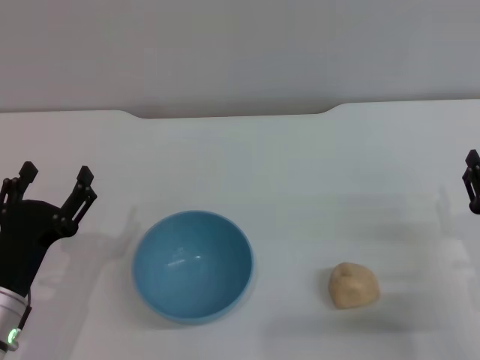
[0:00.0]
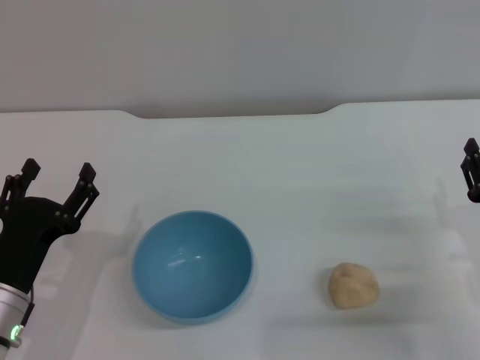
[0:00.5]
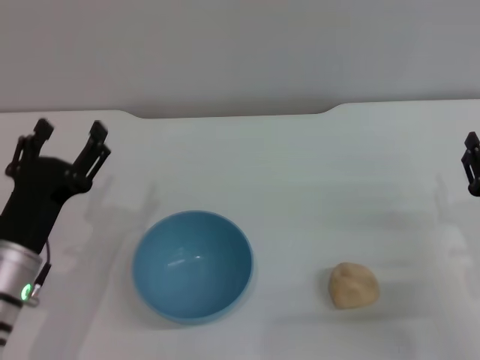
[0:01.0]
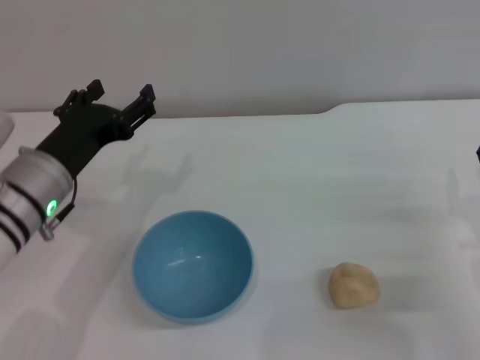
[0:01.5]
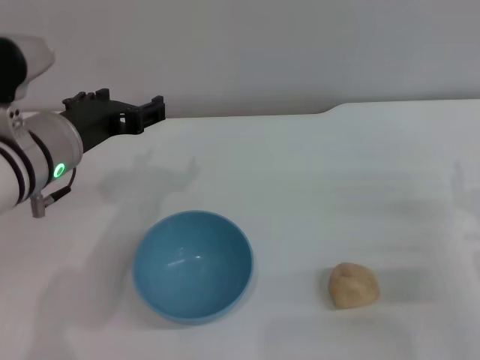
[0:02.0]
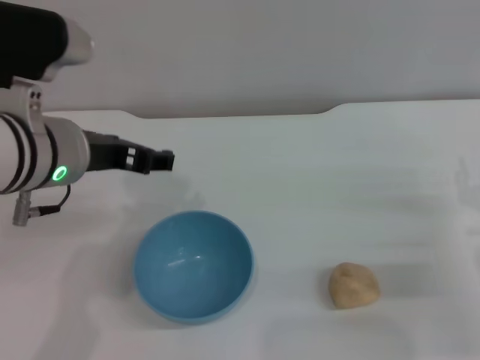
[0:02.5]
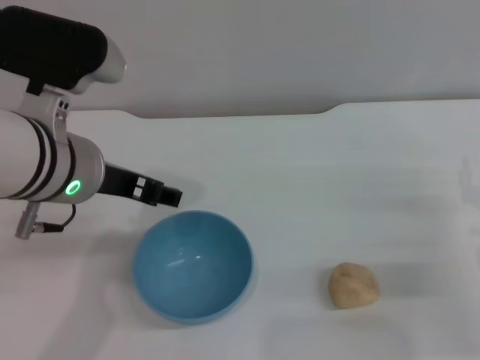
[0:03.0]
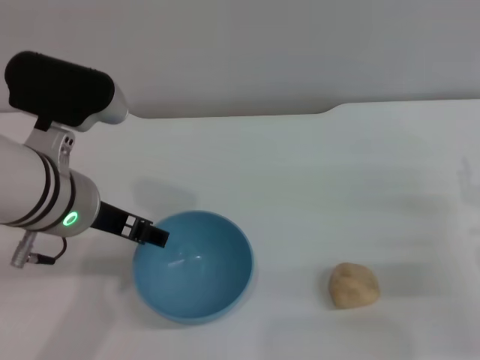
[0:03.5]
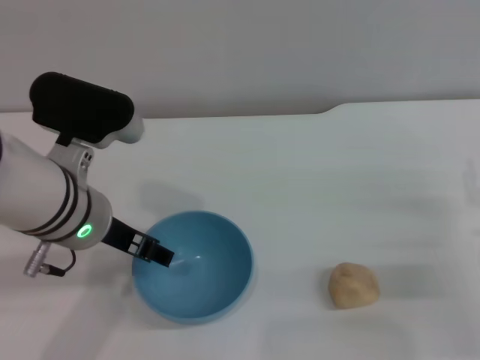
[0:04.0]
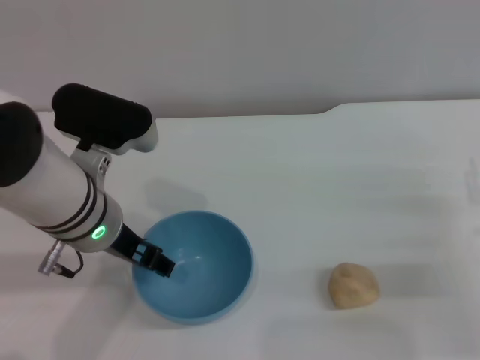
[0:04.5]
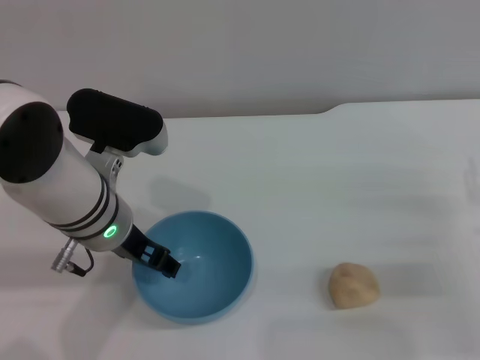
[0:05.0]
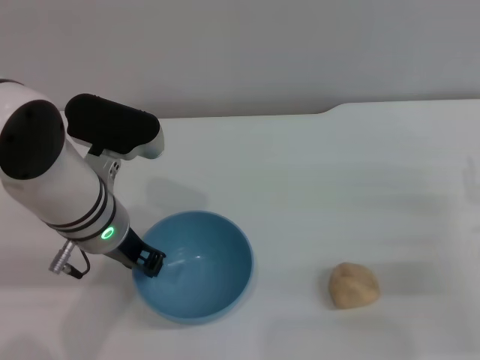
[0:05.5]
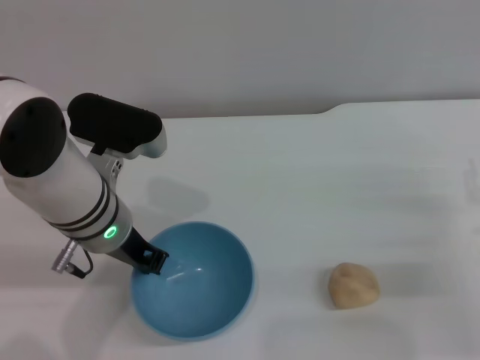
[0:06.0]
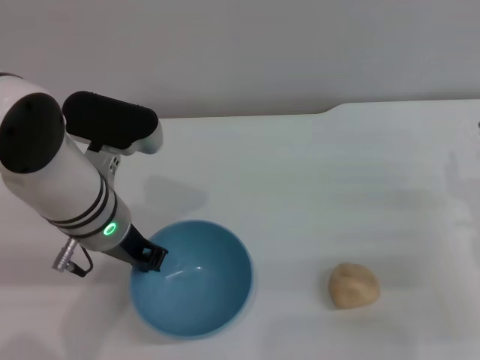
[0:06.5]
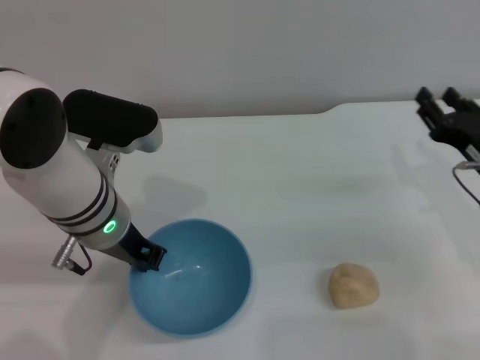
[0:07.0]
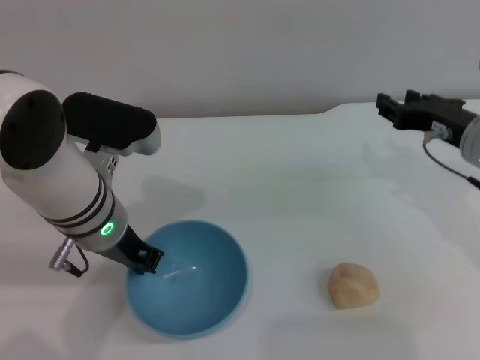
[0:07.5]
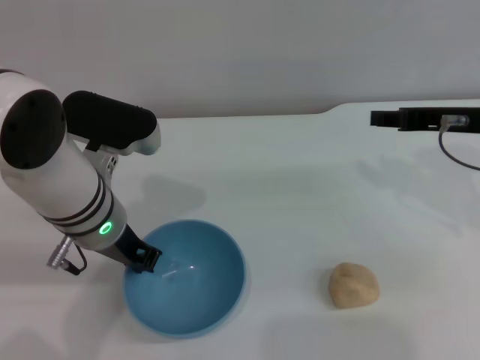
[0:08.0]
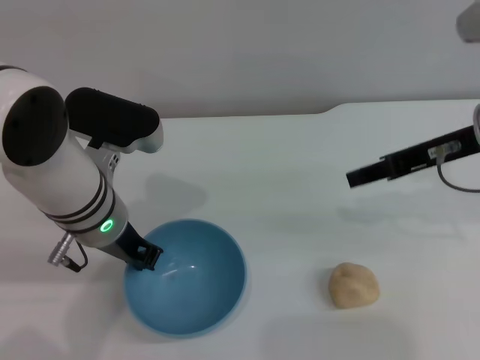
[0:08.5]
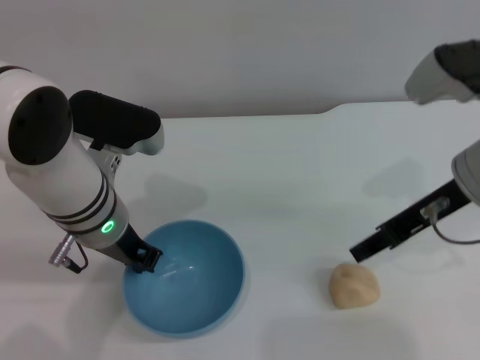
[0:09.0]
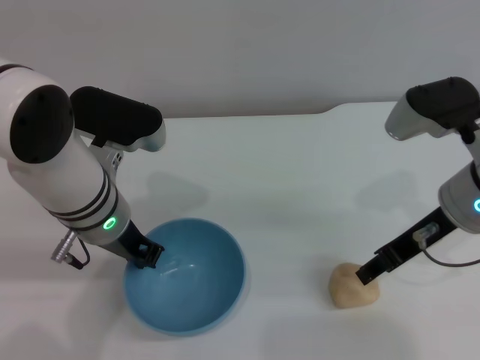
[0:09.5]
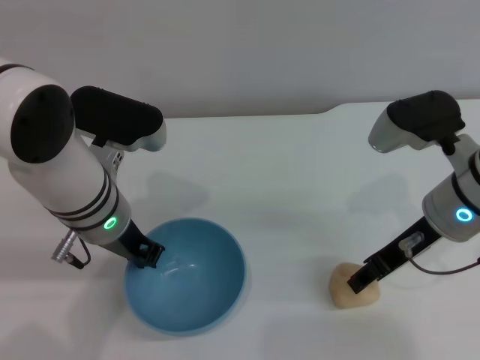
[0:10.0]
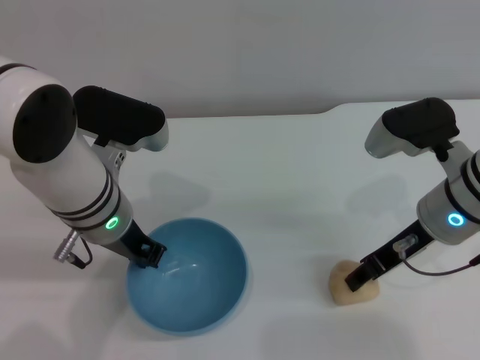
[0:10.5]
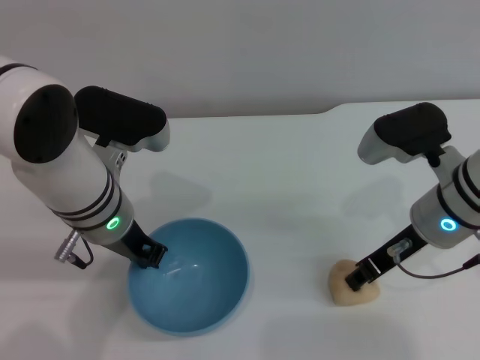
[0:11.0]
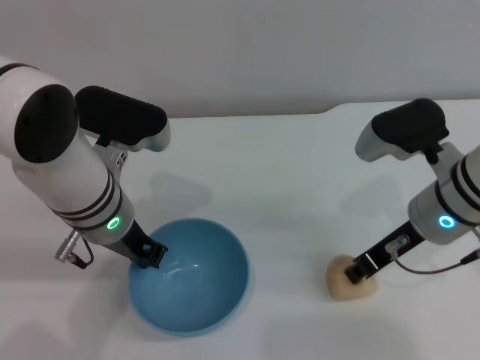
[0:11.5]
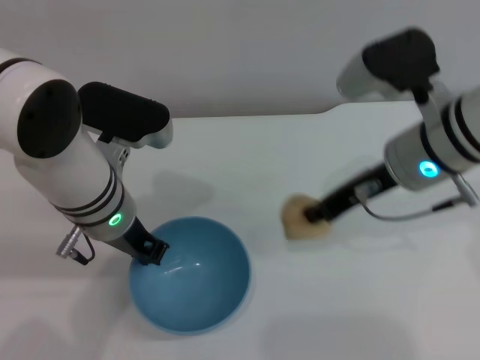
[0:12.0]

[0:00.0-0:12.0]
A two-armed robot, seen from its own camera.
Task of the whole recording: put the egg yolk pastry into the blue bowl and pour it out repeatedly.
Step, 0.0 to 11.0 s: Pick up the bowl with the left gripper.
0.0 to 2.0 s: The left gripper heads upward, forward and to the right, covering some 20 cm.
4.0 to 6.0 s: The left gripper closes.
6.0 to 8.0 s: The right gripper is displaced upward, forward and to the left by about 15 cm.
8.0 to 10.0 s: The right gripper moves to the left, approximately 5 cm.
10.0 to 12.0 s: The right gripper ends up some 5 cm from where it was, and closes up.

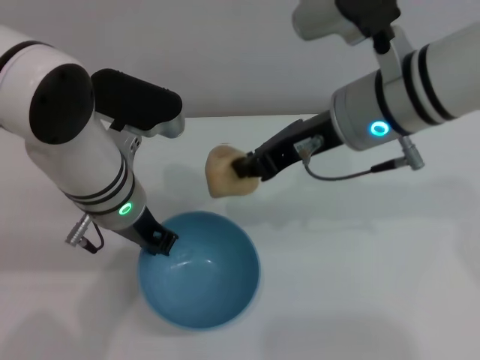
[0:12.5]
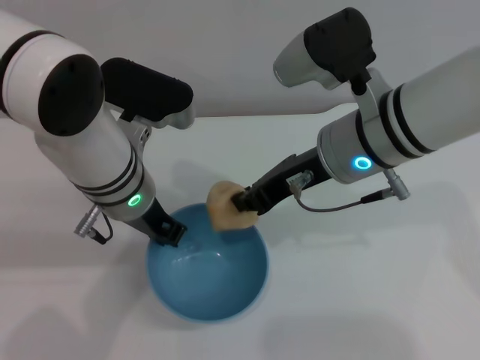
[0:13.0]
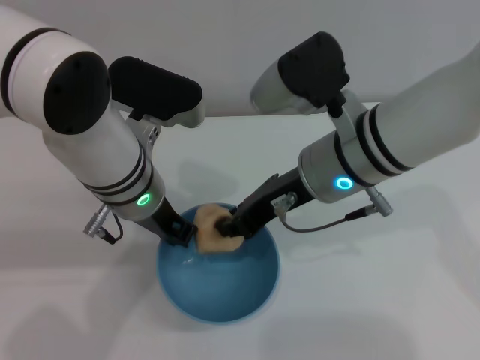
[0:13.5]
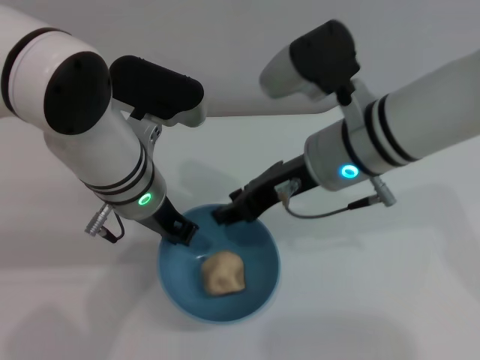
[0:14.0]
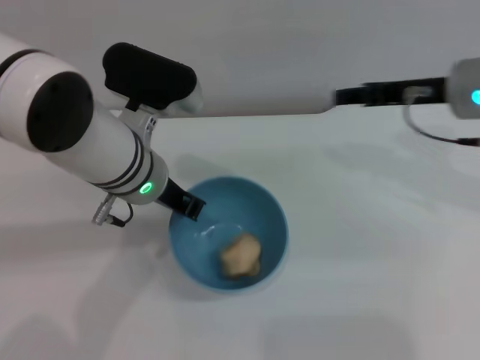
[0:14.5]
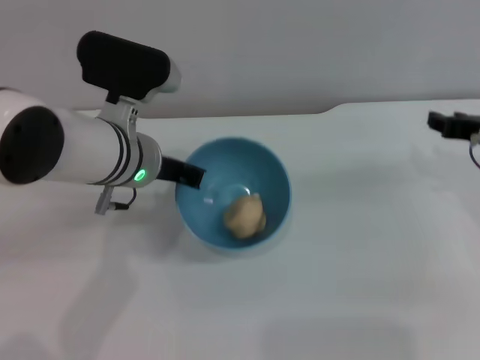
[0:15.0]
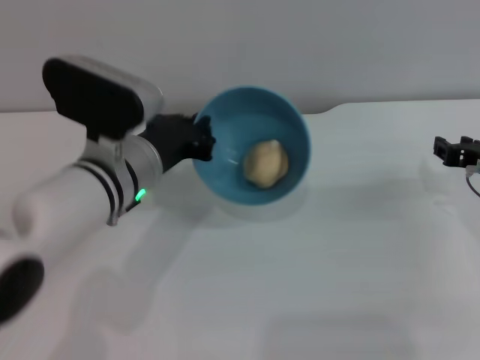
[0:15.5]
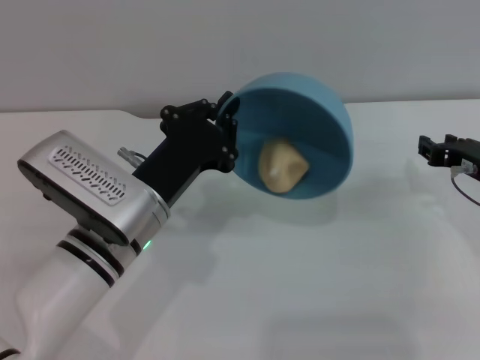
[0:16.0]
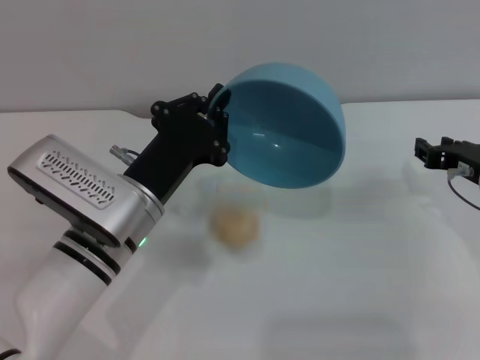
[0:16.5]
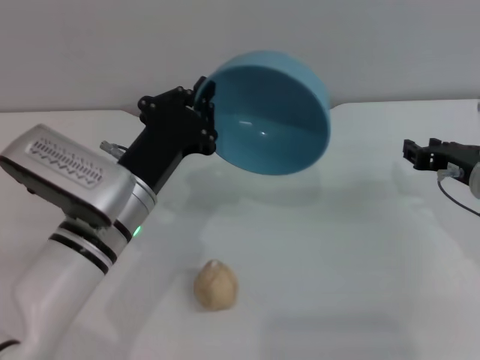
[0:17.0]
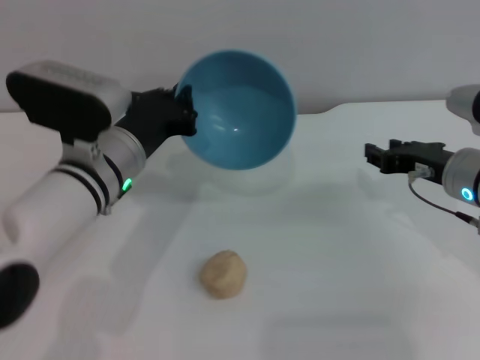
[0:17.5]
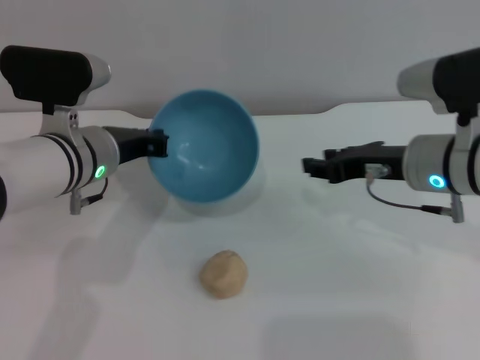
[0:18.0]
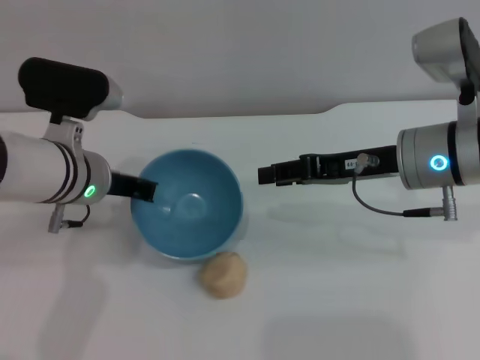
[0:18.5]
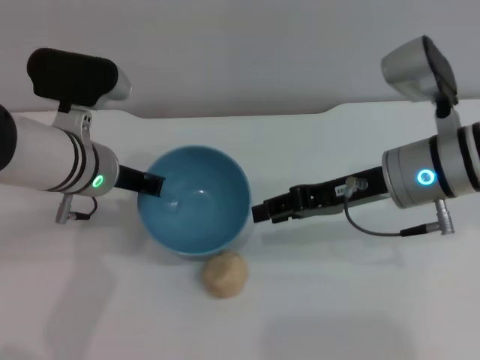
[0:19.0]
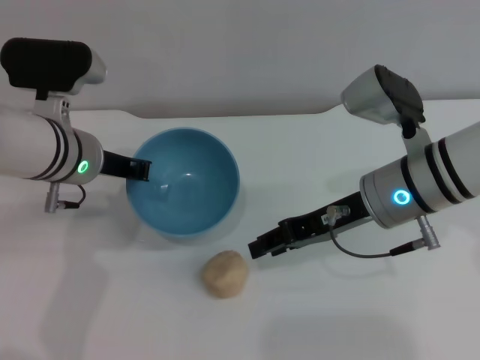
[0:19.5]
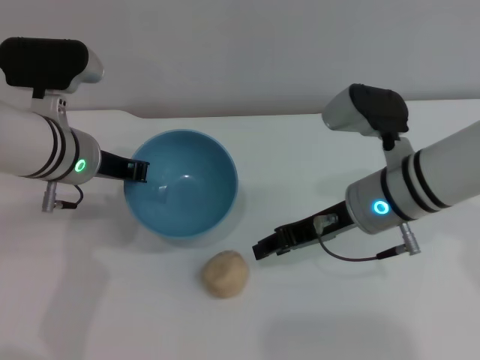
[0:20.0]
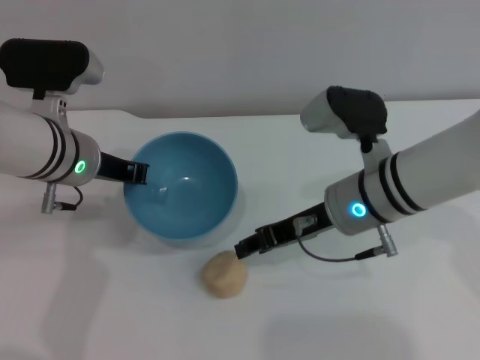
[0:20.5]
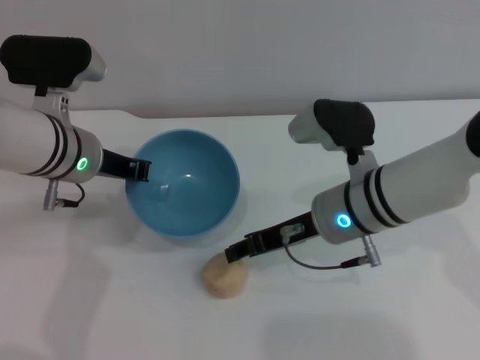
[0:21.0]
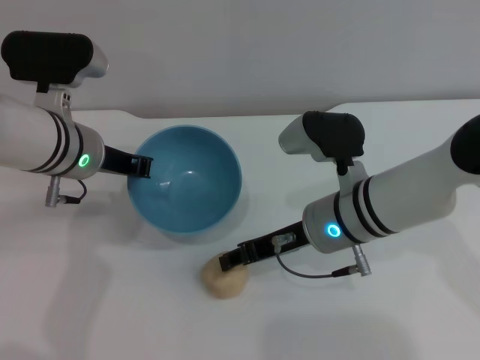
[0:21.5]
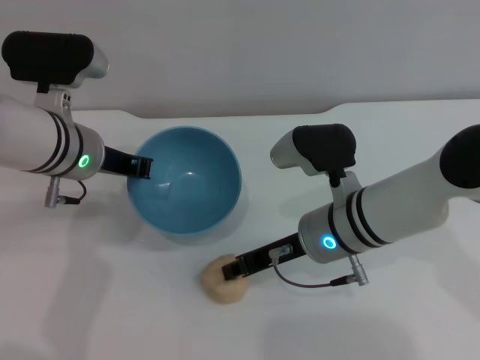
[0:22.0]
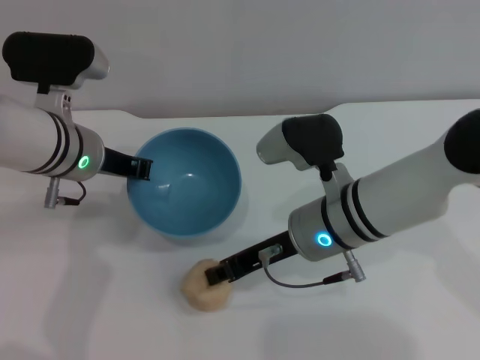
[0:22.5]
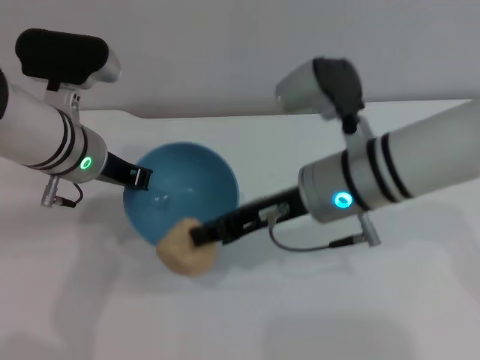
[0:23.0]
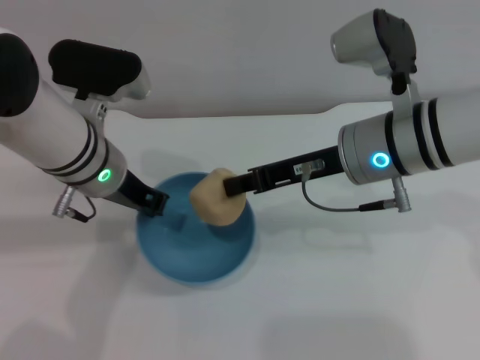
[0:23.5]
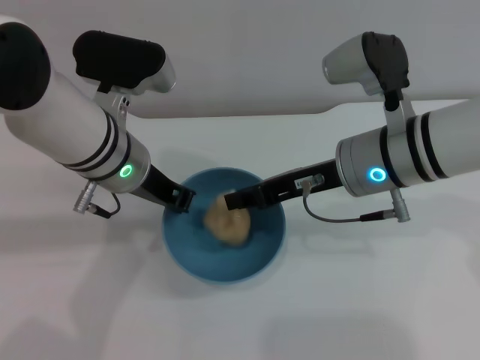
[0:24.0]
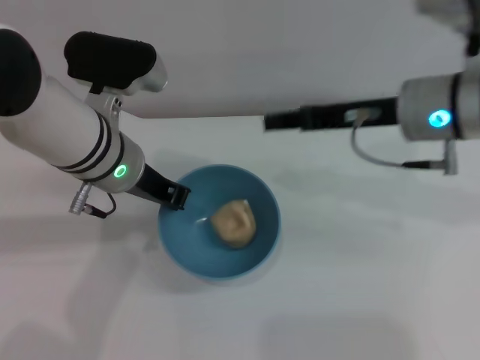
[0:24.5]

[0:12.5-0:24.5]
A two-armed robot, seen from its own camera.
Task of the whole recording: put the egg yolk pastry into the blue bowl and pour it out repeatedly.
Step, 12.5 to 14.0 s: Place the egg yolk pastry into the bowl.
Step, 14.5 to 17.0 s: Pour the egg yolk pastry out of bowl.
Step, 17.5 to 23.0 s: Pick up the egg yolk pastry with the right gripper.
Step, 23.5 to 24.0 s: Place the egg yolk pastry into the bowl.
12.5 to 14.5 s: The right gripper shifts roughly 10 cm to the right, and opens up.
14.5 to 16.5 s: The left gripper travels backward and downward by about 10 cm; the right gripper shifts about 10 cm downward and to the right.
16.5 to 18.5 s: The right gripper goes roughly 10 cm to the left and upward, while the left gripper shifts some 10 cm forward.
18.5 to 20.5 s: The right gripper heads to the left, covering about 5 cm.
20.5 to 22.5 s: The right gripper closes.
22.5 to 24.5 s: The right gripper shifts about 15 cm to the right and upward. The left gripper shifts by about 5 cm.

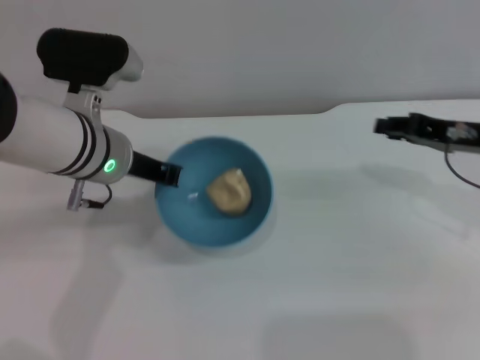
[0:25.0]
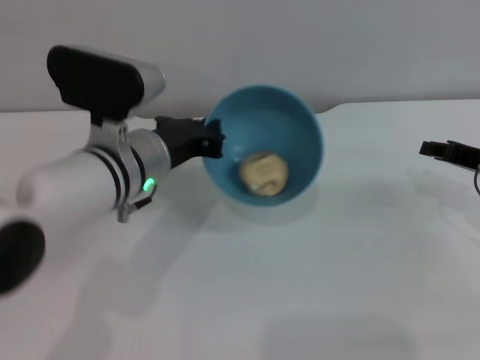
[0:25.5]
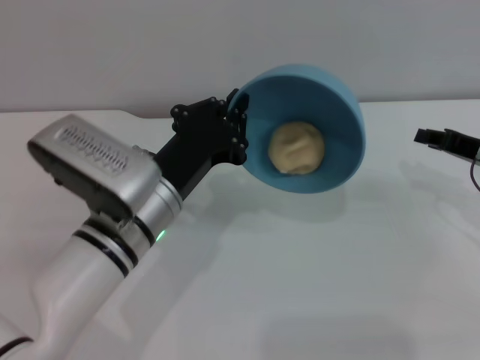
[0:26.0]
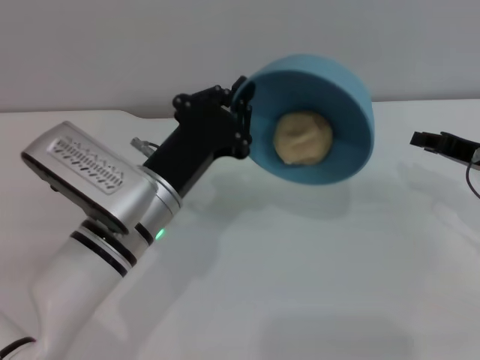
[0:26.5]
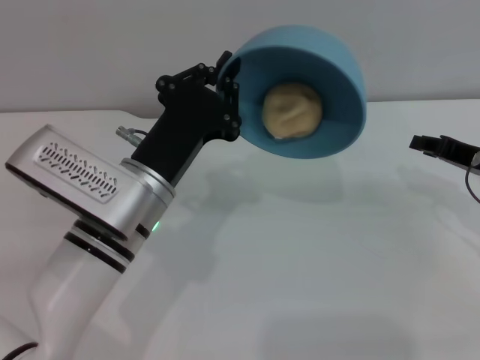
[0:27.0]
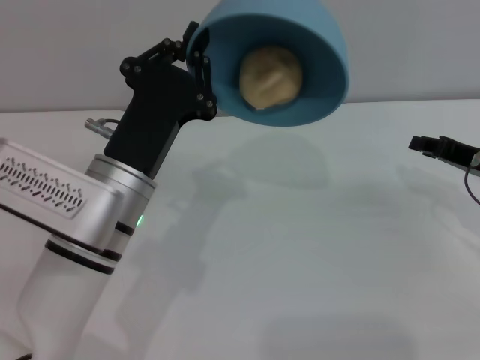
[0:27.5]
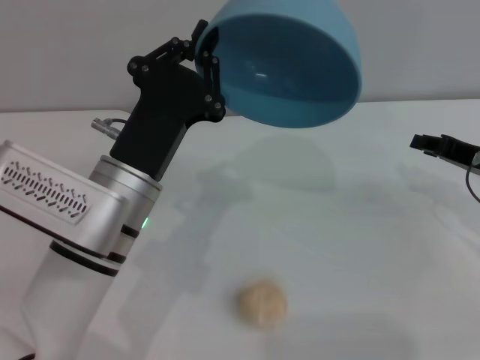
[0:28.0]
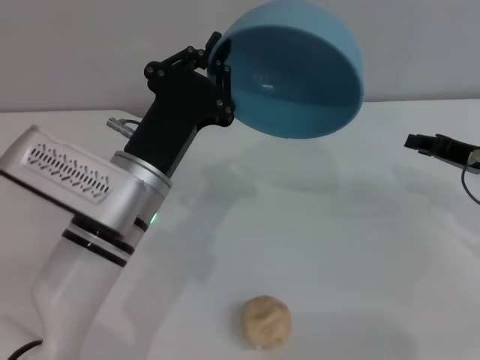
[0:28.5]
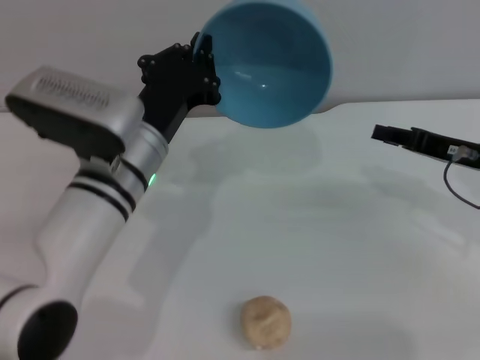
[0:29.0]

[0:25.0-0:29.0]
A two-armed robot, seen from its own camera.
Task of the whole recording: put the egg yolk pastry into the blue bowl and pour it out repeatedly.
Step, 25.0 to 28.0 s: Pour the egg yolk pastry out of bowl.
25.0 to 27.0 s: The right gripper ends up approximately 5 cm from where it was; the left gripper goes some 10 cm backward.
